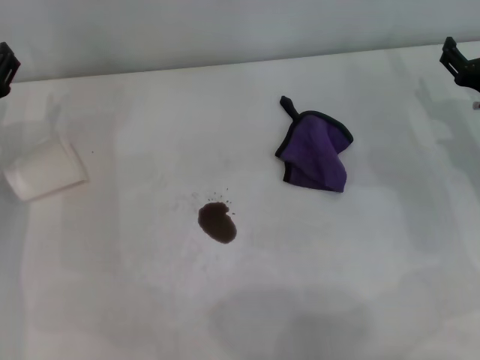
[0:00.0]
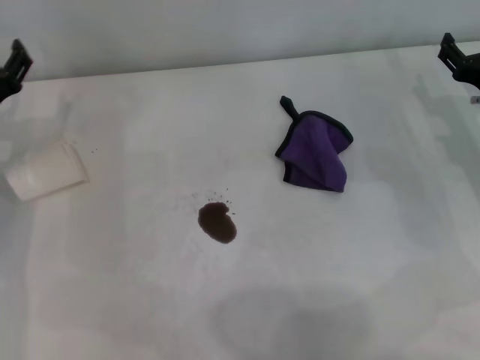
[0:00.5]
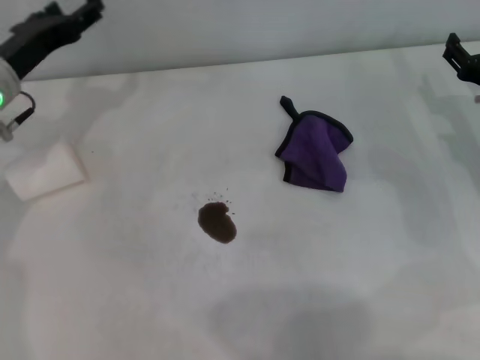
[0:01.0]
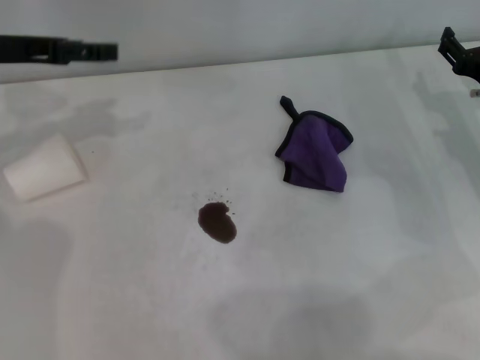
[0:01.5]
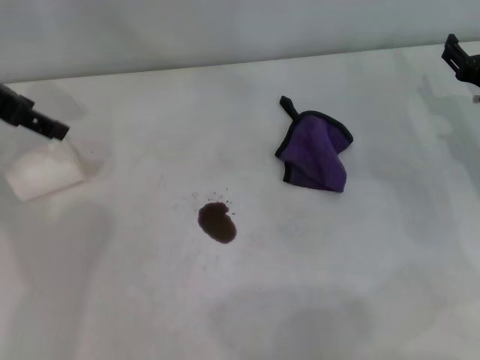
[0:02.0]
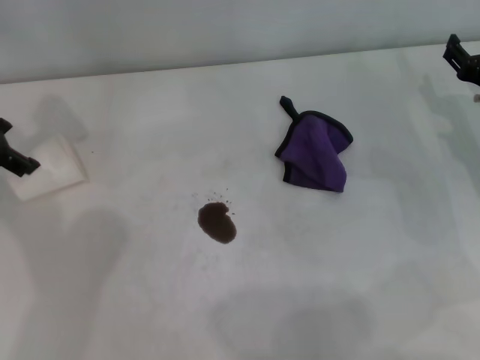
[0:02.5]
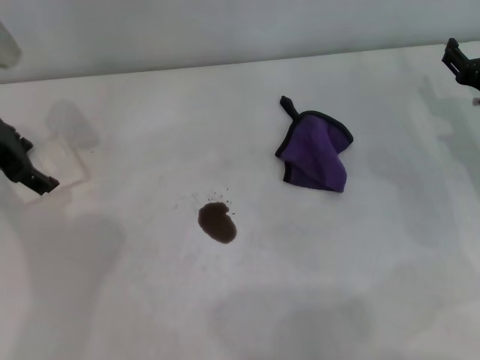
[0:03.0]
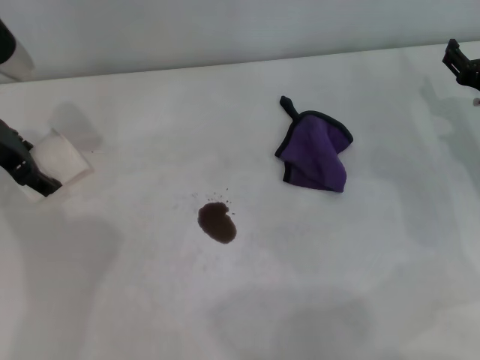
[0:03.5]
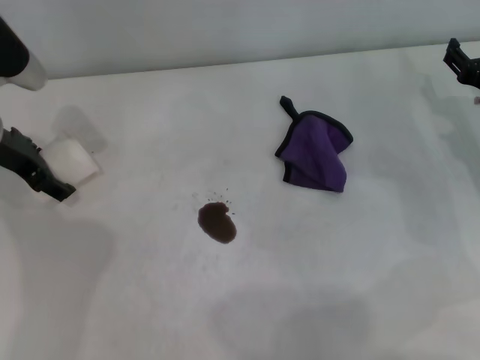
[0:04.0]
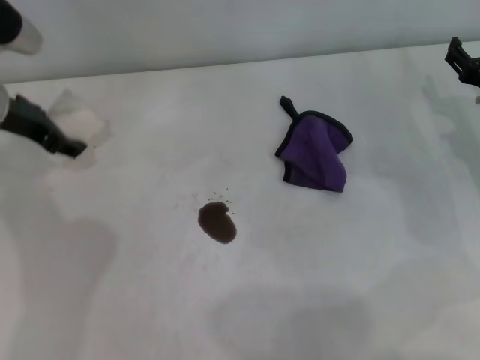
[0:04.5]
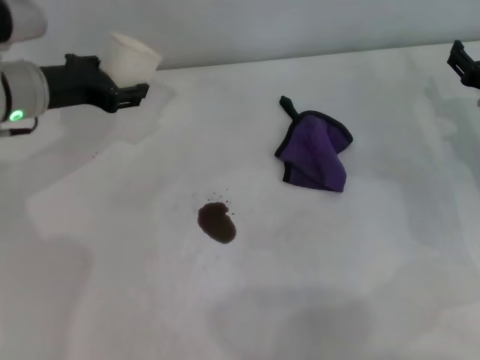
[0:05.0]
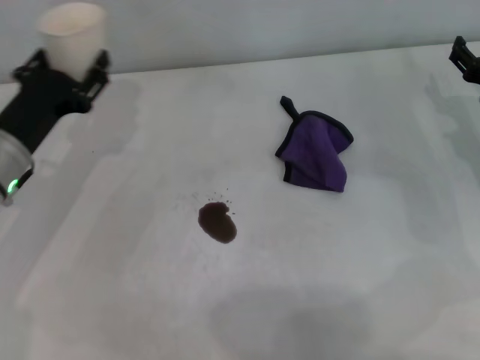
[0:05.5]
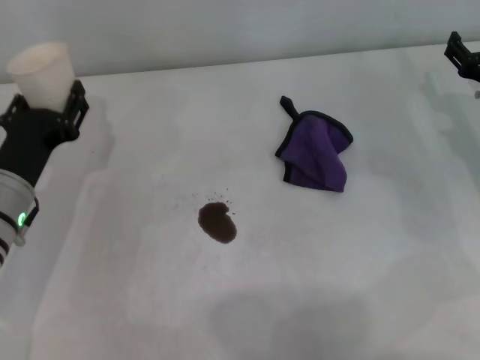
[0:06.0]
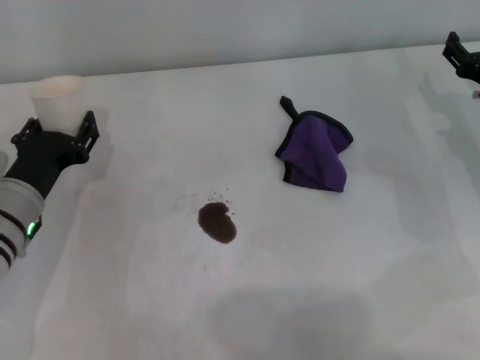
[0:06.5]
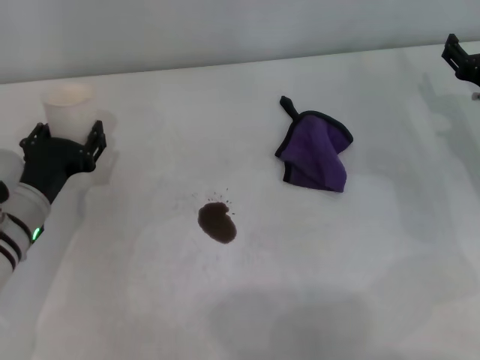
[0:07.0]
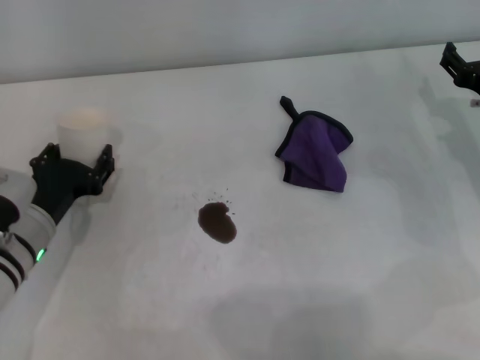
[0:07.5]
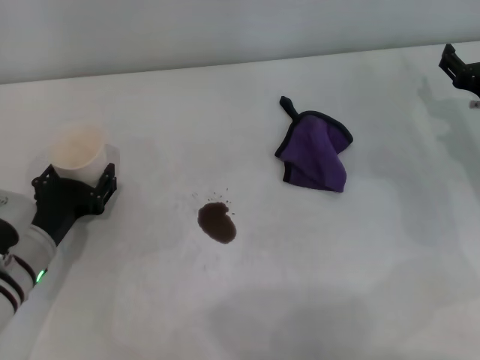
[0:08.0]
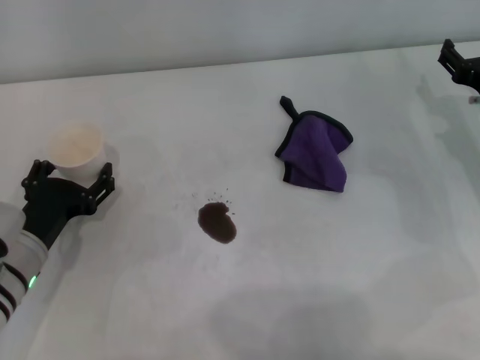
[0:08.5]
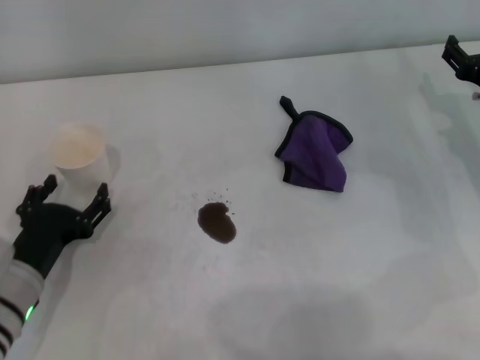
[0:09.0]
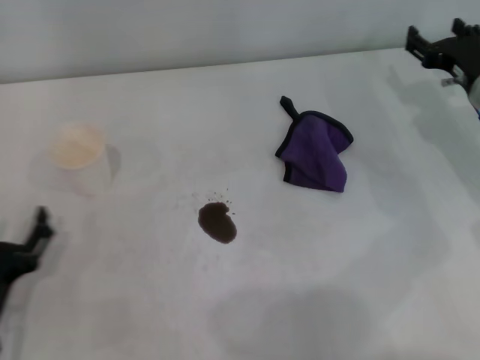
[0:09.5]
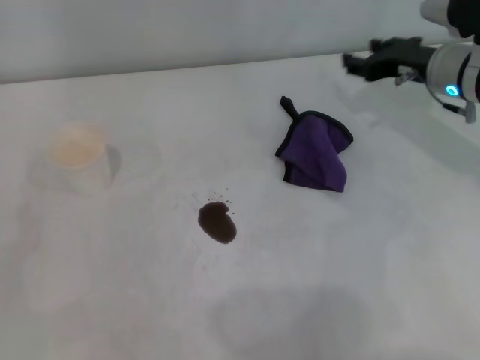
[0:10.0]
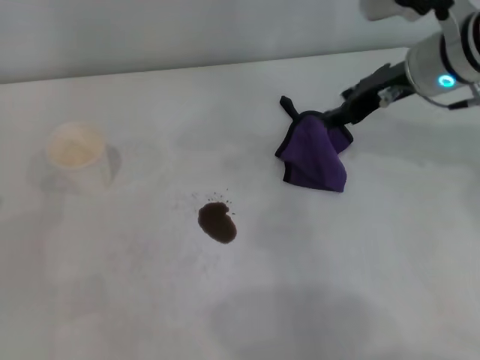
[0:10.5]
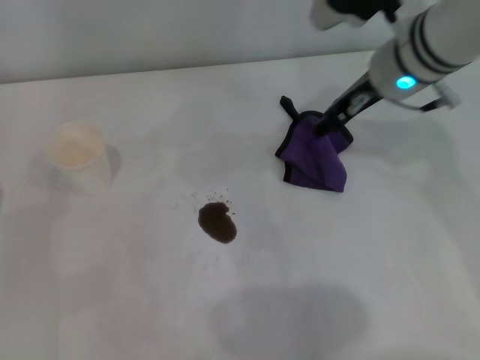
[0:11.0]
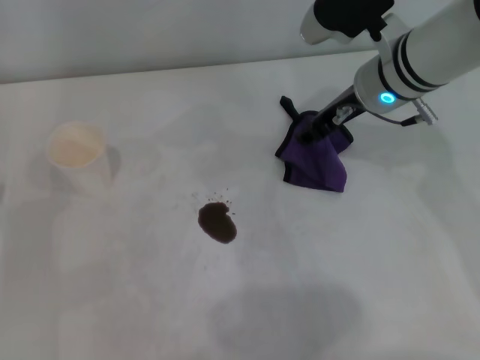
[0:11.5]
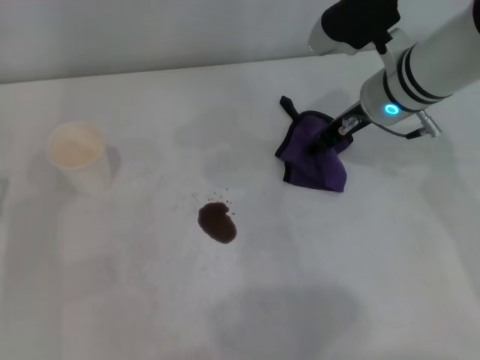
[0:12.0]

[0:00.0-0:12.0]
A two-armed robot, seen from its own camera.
Step, 0:00.0 to 0:04.0: Grasp the paper cup with the left gripper.
Step, 0:04.5 to 0:08.0: Stand the paper cup upright with the left gripper.
0:00.0 to 0:02.0: The left gripper shifts some 15 cm upward.
0:02.0 to 0:04.0: The left gripper travels downward by some 10 cm.
0:04.0 to 0:06.0: The left gripper moves backward and downward, approximately 15 cm, and closes its fingers.
0:06.0 to 0:08.0: The left gripper changes place by some 5 cm.
0:08.0 to 0:10.0: The right gripper heads forward, upward and to the left, covering roughly 10 cm. Meanwhile the left gripper travels backward and to the left by roughly 15 cm, and opens up.
0:10.0 to 0:12.0: The right gripper is displaced to the left by about 10 cm.

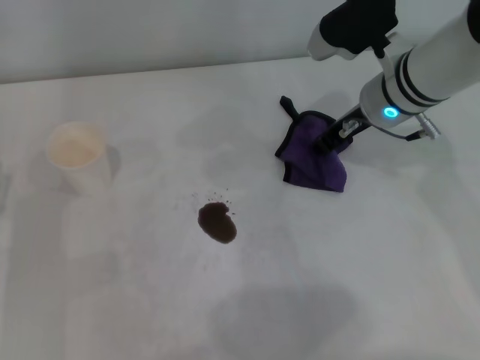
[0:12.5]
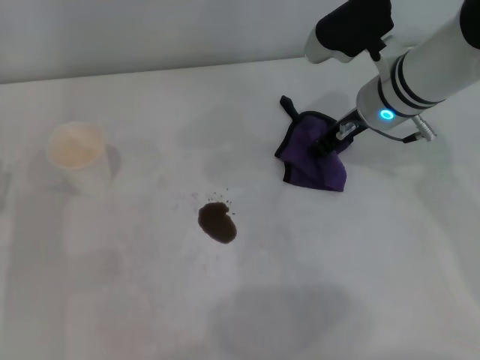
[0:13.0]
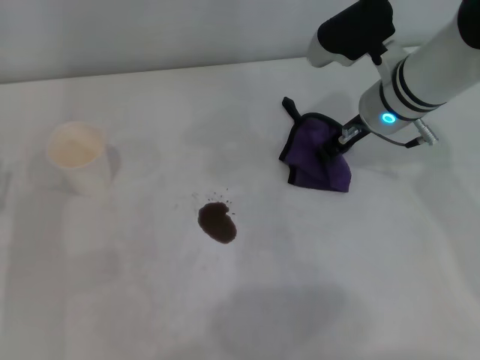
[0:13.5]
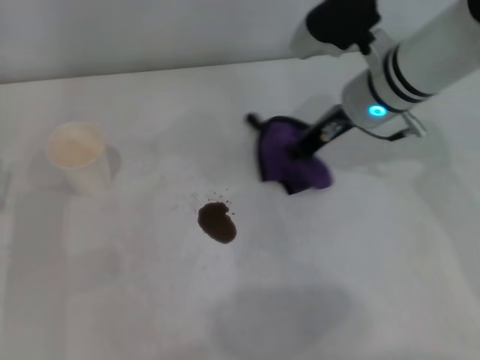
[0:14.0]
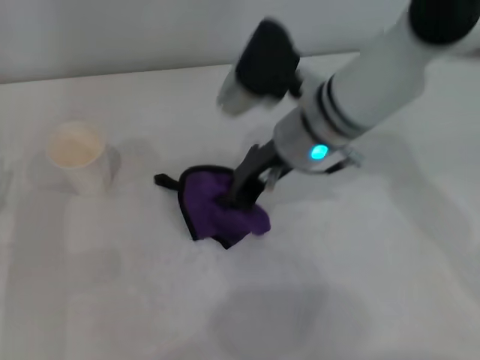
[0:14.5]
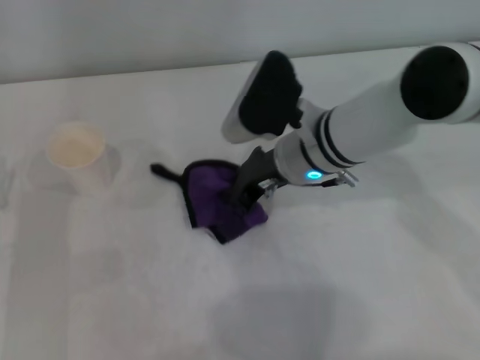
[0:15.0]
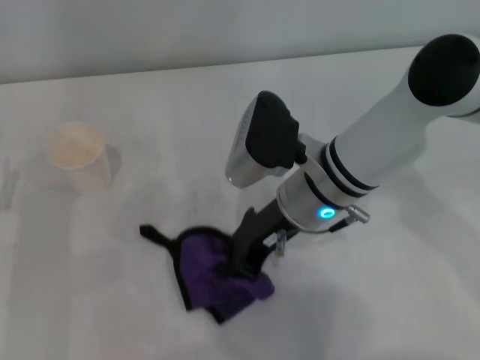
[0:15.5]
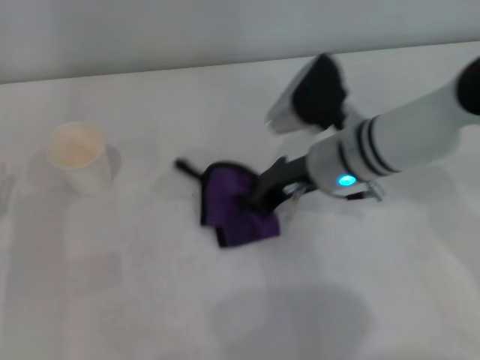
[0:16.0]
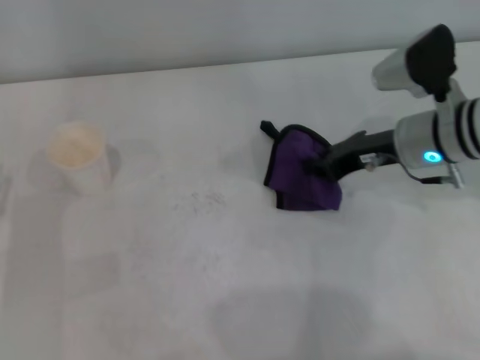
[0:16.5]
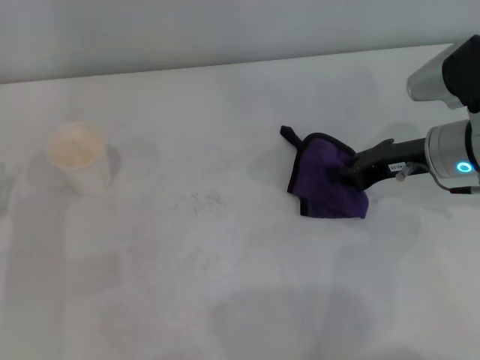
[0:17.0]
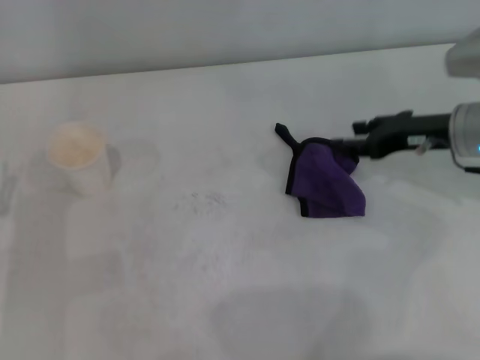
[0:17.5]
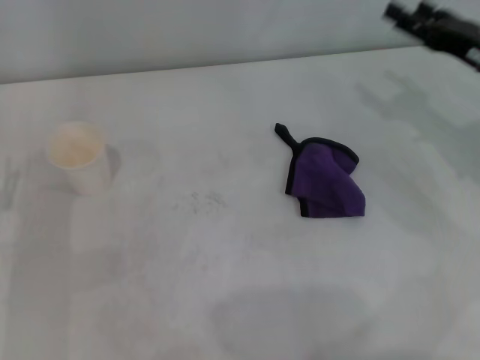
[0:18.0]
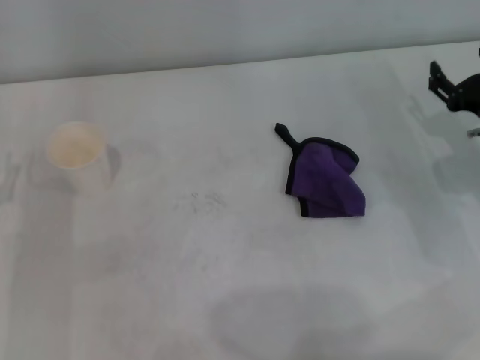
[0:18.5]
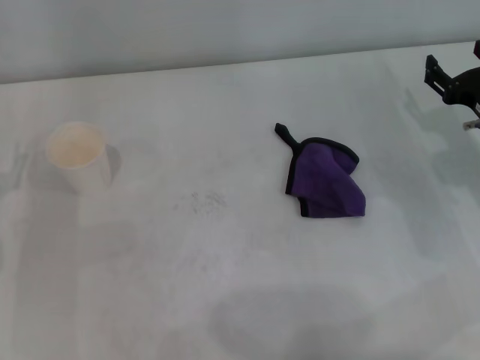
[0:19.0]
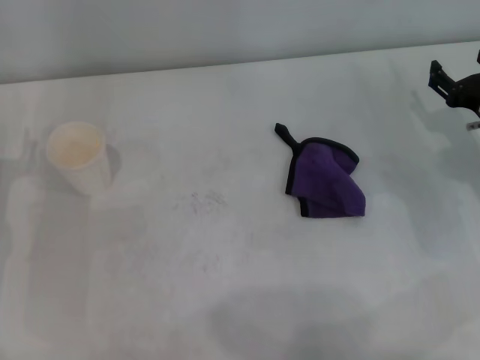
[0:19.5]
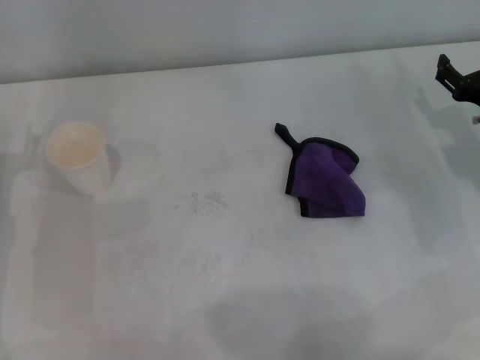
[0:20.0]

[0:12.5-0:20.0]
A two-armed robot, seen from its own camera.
Step, 0:14.0 to 0:16.0: Wipe the stains off the table with the right gripper.
Step, 0:16.5 to 0:17.0: Place the rag on the table with the right gripper.
0:12.5 to 0:14.5: The right gripper shifts approximately 10 cm to the left, and closes.
0:14.5 to 0:16.5: The right gripper heads to the right, covering some 15 cm.
0:16.5 to 0:18.0: The right gripper goes some 10 cm to the right, and opens its fingers.
0:18.0 to 0:20.0: The right gripper goes approximately 5 cm downward.
